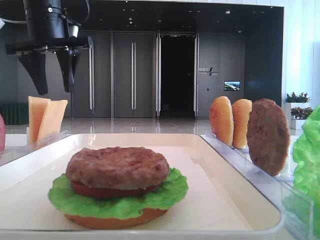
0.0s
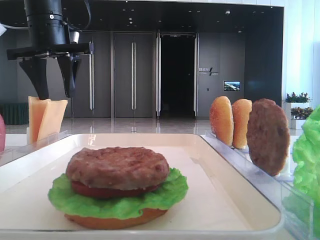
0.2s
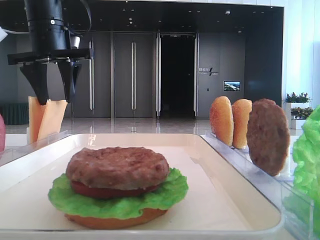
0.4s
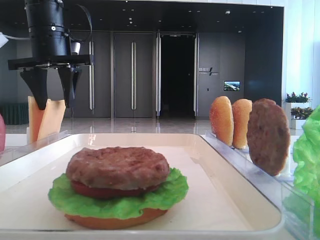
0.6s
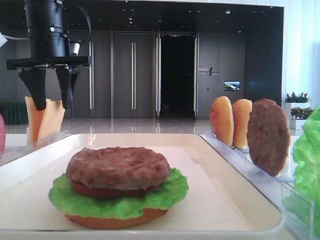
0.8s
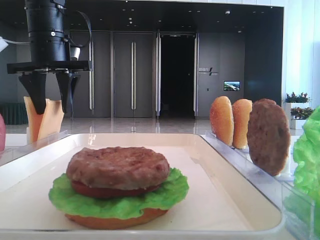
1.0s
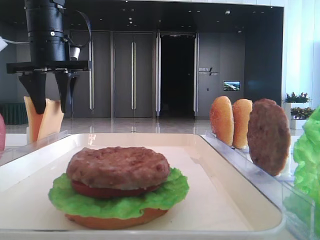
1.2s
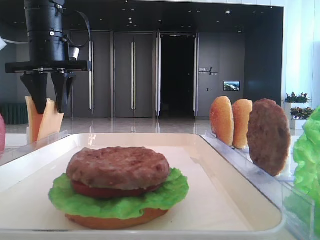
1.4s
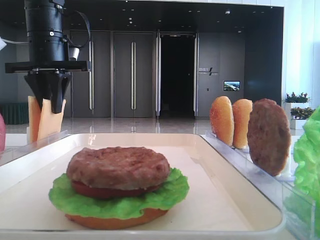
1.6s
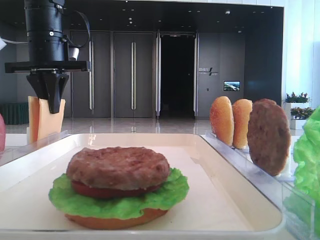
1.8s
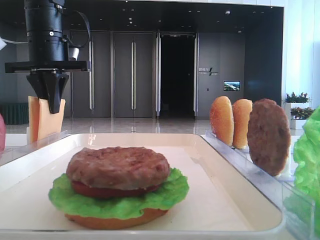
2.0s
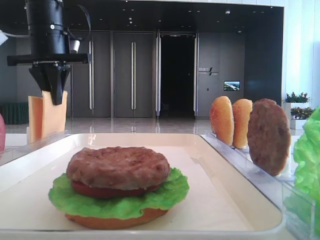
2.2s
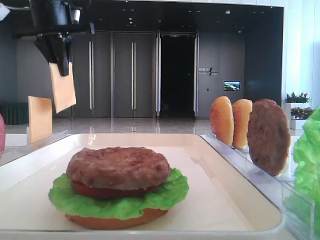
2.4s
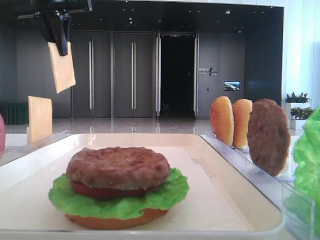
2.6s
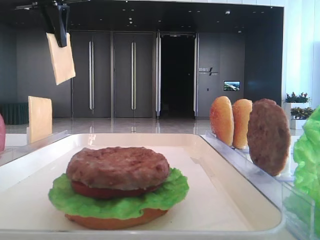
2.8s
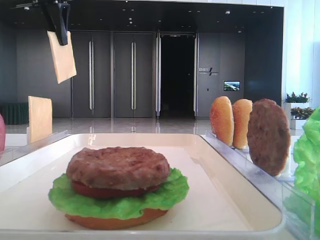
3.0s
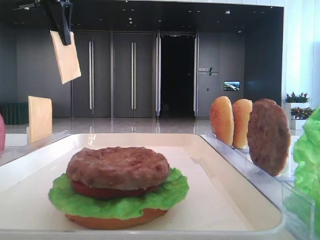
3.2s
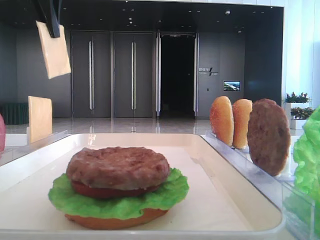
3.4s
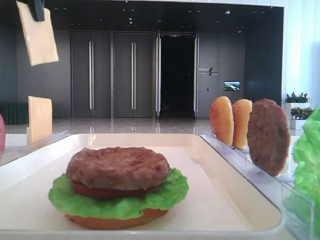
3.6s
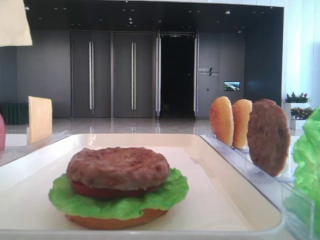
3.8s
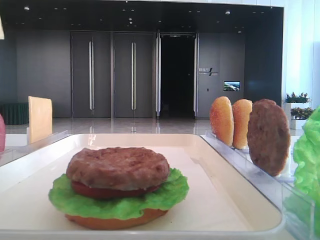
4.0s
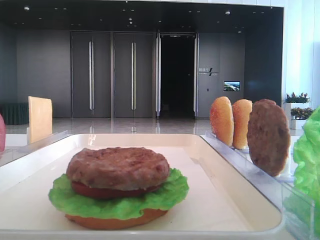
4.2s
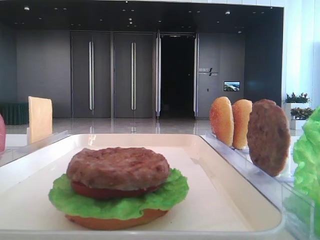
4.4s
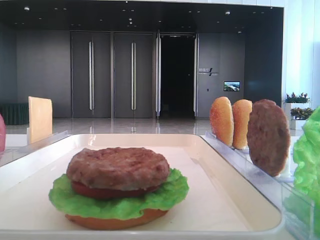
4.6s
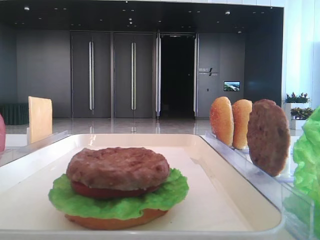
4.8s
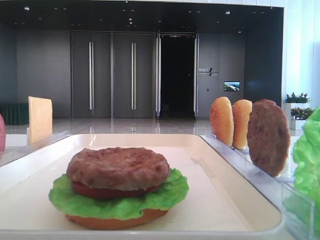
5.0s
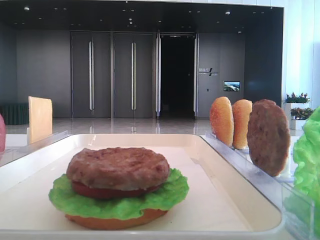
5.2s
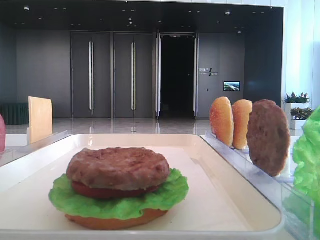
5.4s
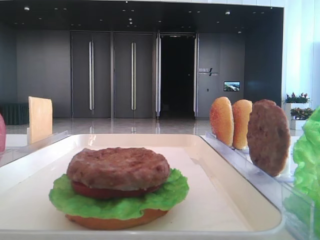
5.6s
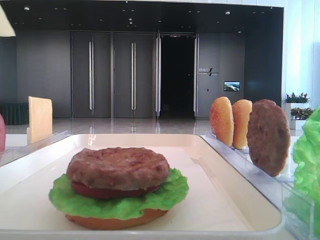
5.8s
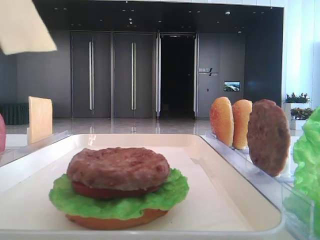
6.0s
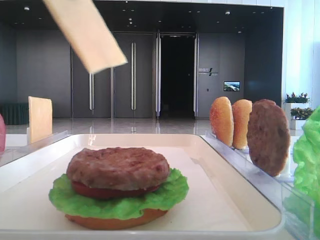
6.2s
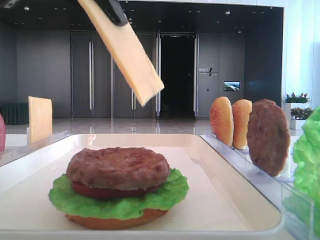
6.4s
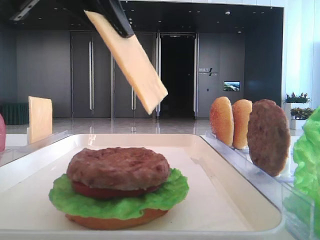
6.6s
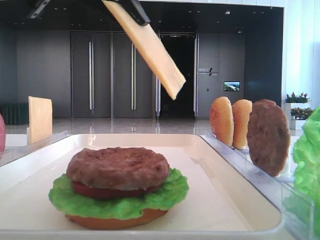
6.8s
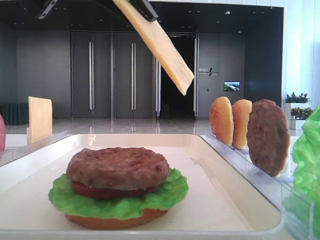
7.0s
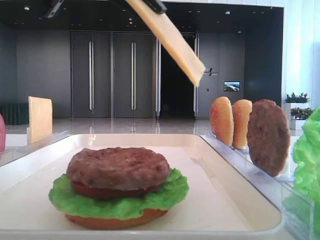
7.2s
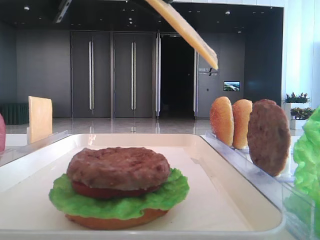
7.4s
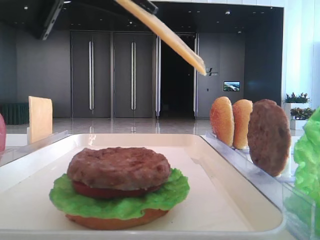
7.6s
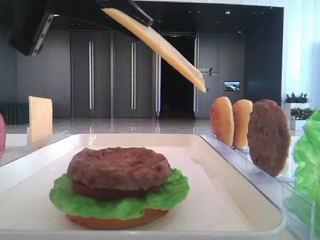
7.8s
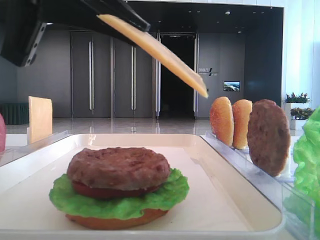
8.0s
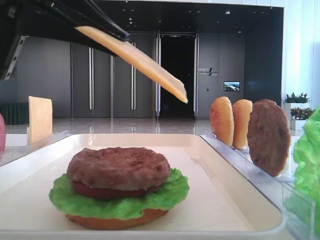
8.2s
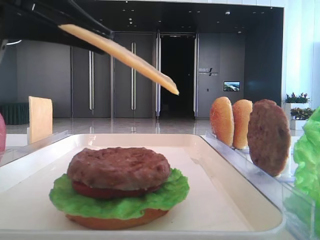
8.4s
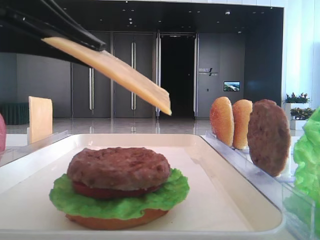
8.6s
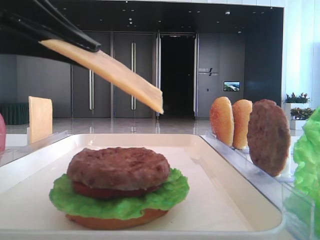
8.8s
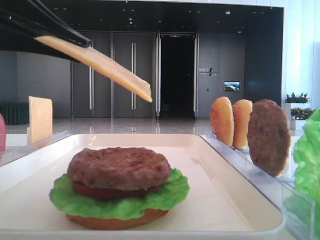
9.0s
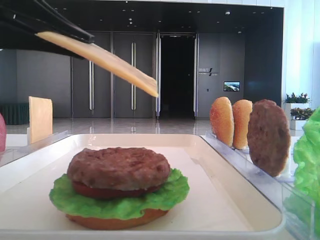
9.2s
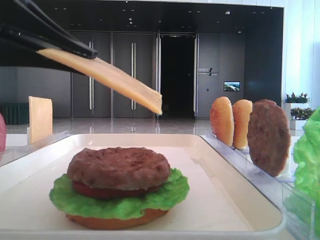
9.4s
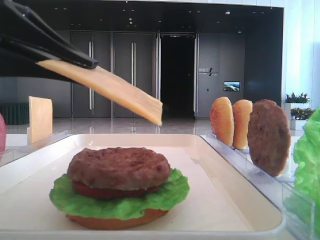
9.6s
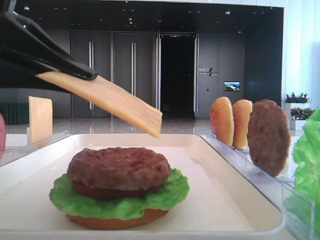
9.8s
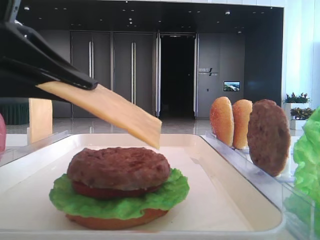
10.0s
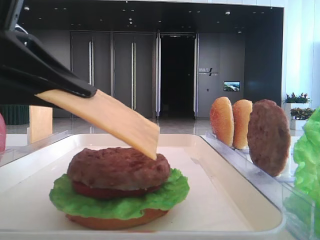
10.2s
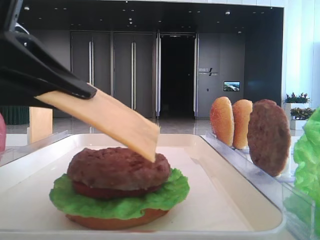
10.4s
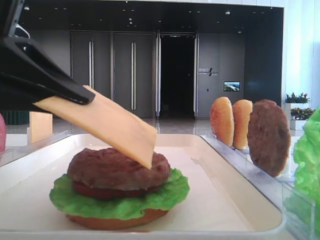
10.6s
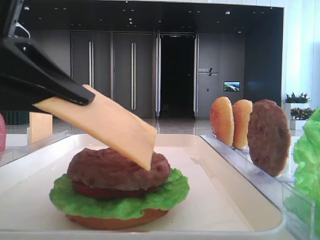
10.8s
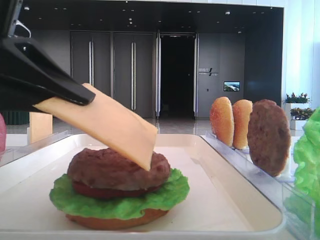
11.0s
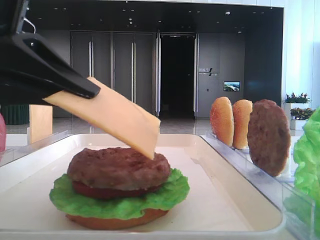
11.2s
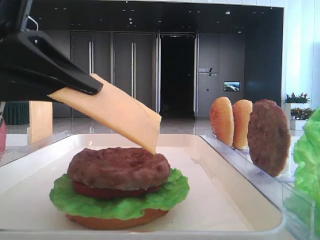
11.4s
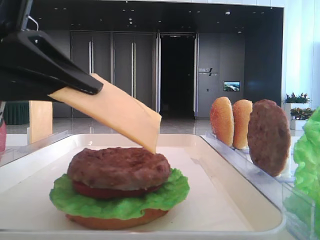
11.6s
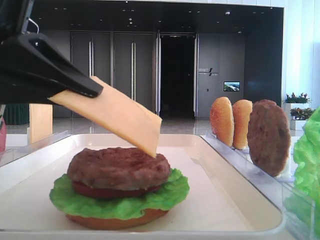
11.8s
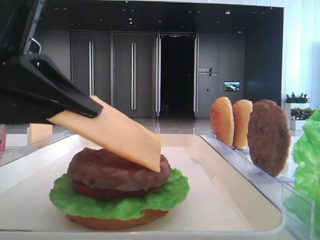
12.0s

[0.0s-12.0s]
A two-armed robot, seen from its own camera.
0.0s to 1.6s: The left gripper closes.
1.6s to 3.0s: The left gripper heads upward, covering about 10 cm.
3.0s to 4.4s: The left gripper moves backward, some 25 cm.
4.4s to 6.0s: The left gripper is displaced to the right by about 5 cm.
6.0s to 7.6s: The left gripper heads to the right and downward, covering about 10 cm.
7.6s to 9.0s: The left gripper moves to the left and downward, some 10 cm.
9.0s to 12.0s: The grippers make only small movements.

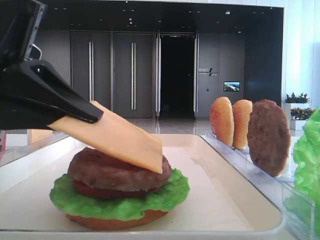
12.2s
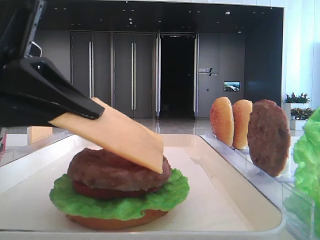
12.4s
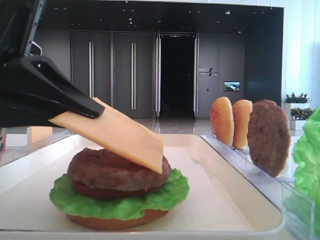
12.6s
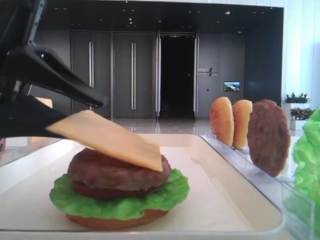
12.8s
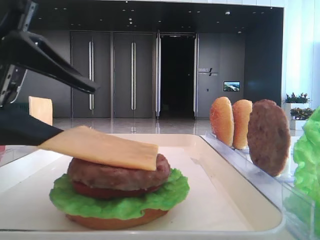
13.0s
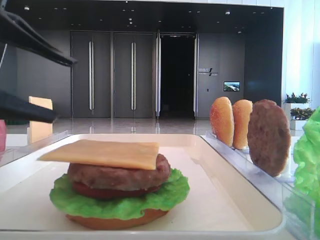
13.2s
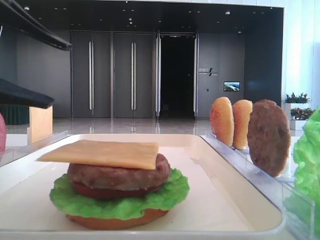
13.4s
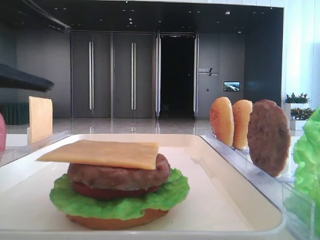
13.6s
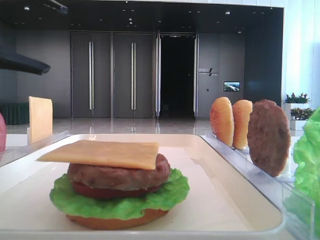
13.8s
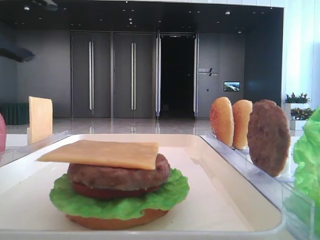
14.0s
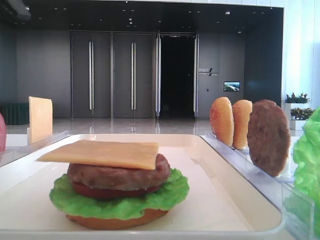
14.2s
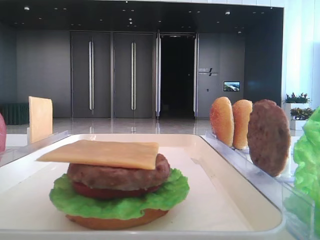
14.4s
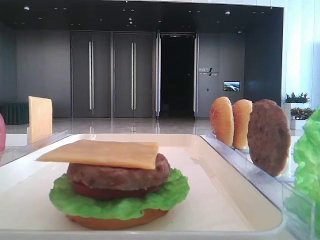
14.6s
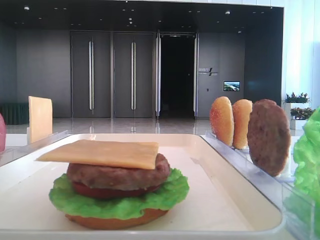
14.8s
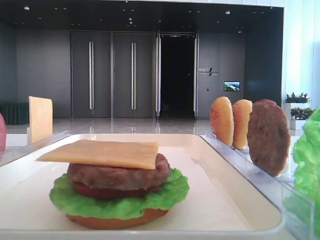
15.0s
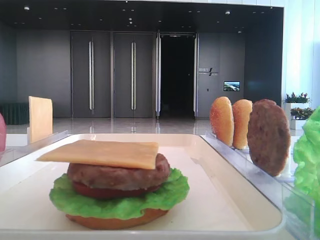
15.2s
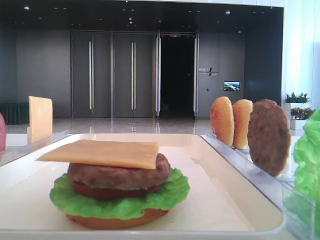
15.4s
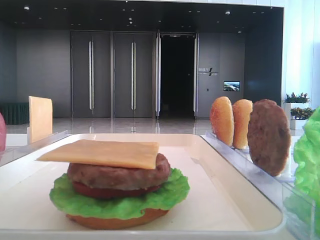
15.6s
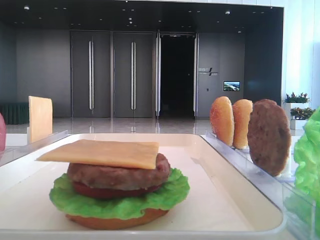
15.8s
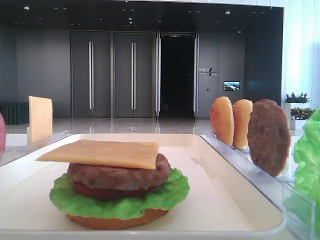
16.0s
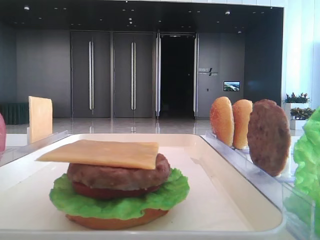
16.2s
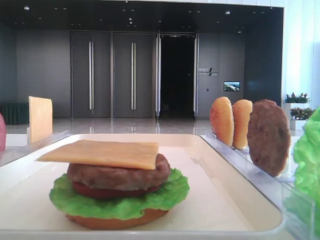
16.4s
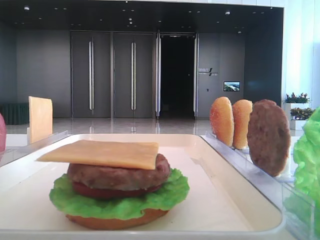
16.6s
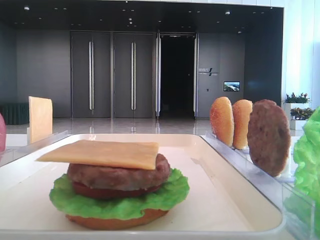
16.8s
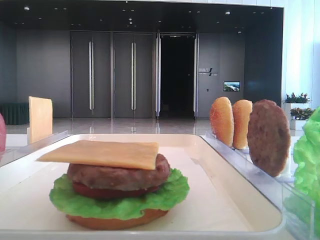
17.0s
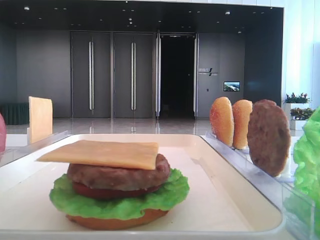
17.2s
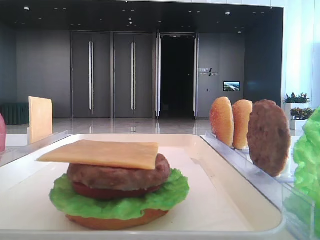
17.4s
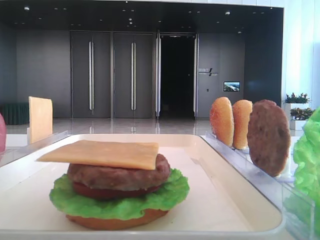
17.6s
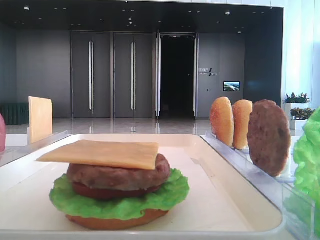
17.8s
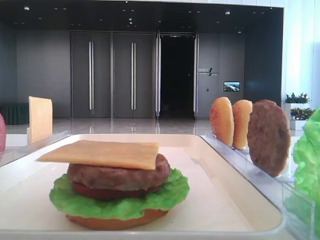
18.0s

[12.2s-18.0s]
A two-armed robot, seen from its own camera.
12.2s to 13.6s: The left gripper changes place by roughly 5 cm, and opens up.
13.6s to 15.0s: The left gripper goes some 15 cm upward and to the left.

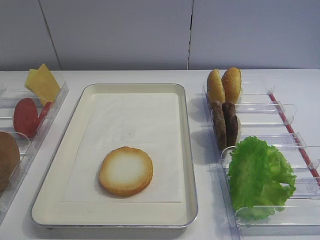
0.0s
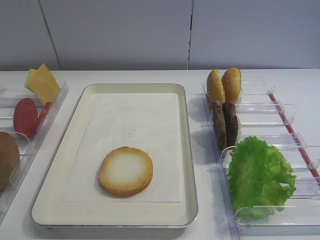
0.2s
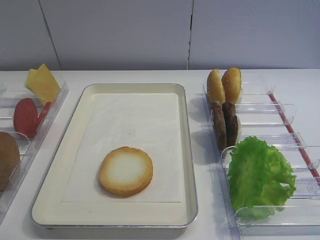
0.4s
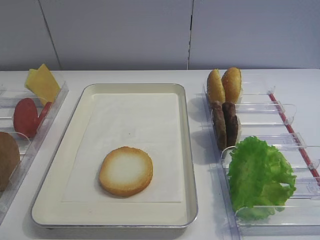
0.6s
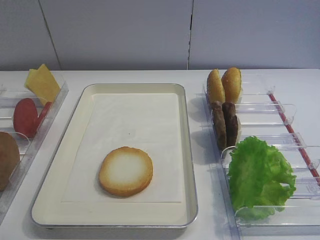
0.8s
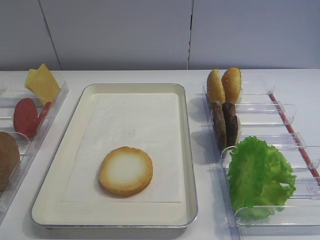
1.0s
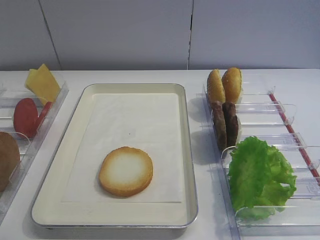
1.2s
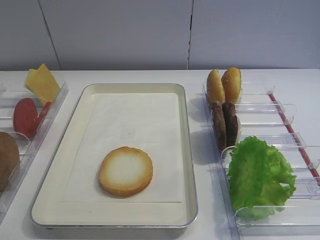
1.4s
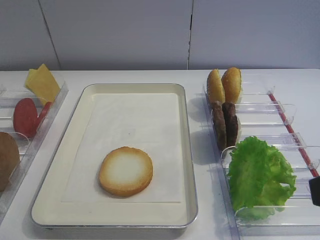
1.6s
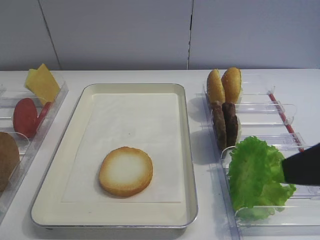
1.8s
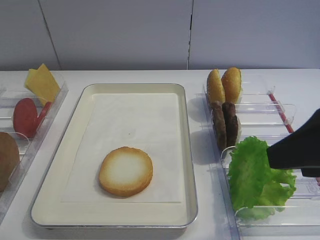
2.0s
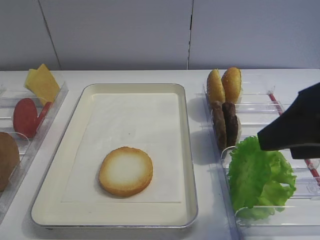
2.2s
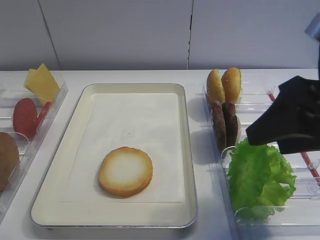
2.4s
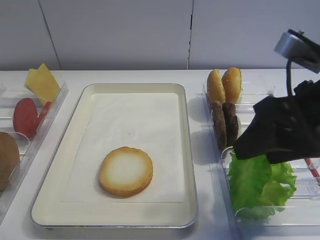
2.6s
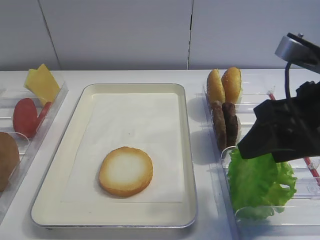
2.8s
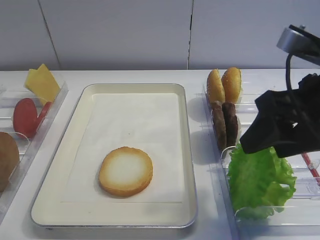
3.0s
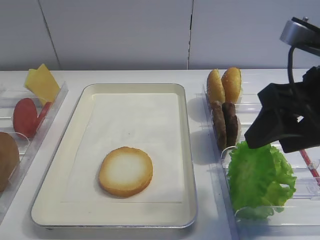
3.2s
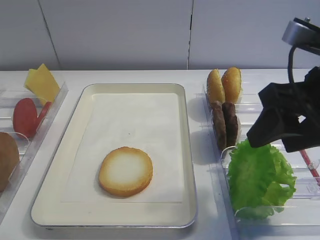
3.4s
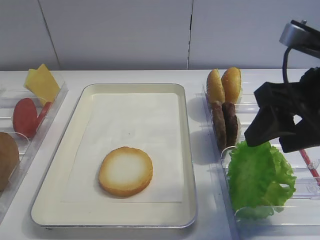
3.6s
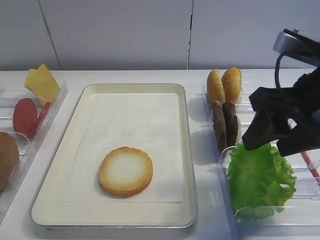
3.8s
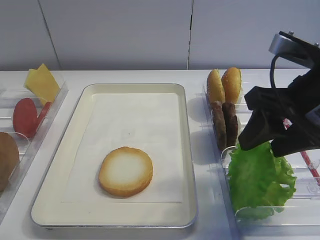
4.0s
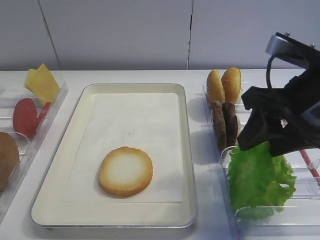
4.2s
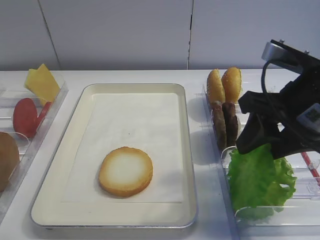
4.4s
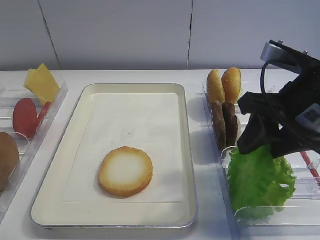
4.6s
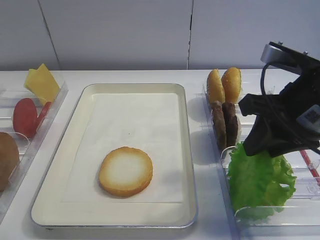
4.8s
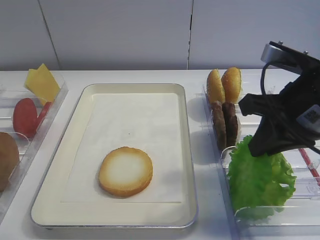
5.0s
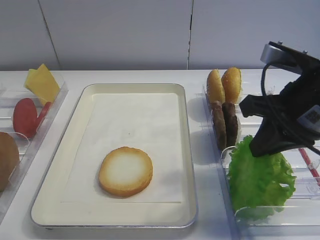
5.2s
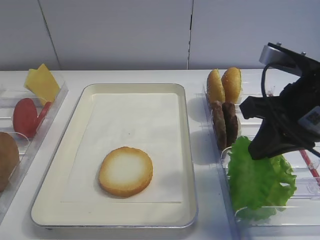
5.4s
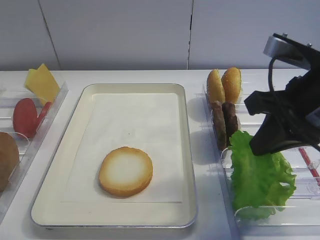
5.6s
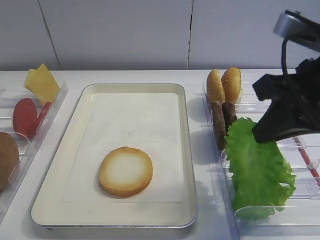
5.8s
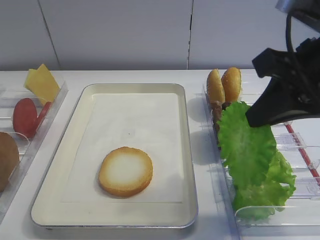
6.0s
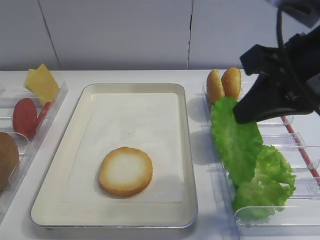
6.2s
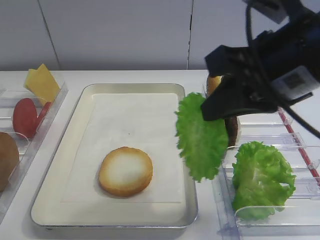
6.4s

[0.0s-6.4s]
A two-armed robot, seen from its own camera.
Step, 0.0s to 5.8s: Pick up the lettuce leaf with the right gripper.
1.6s to 3.2s: The right gripper shifts some 10 cm forward.
3.2s to 4.8s: The right gripper closes.
4.8s to 6.4s: The right gripper is displaced upward and to the left by approximately 10 cm, and closes up.
